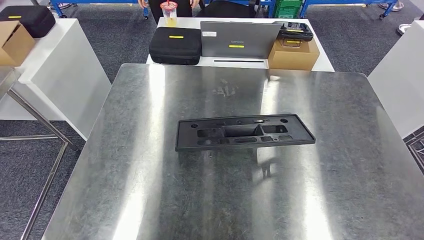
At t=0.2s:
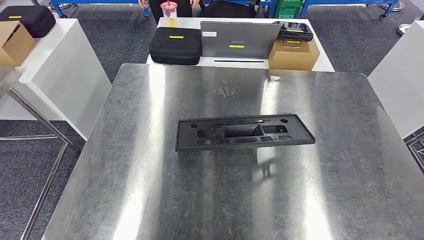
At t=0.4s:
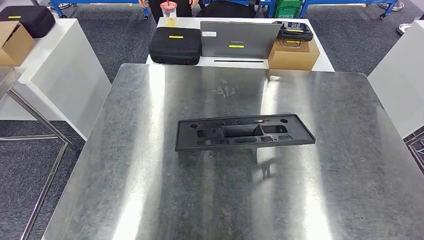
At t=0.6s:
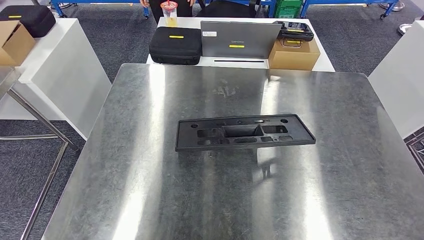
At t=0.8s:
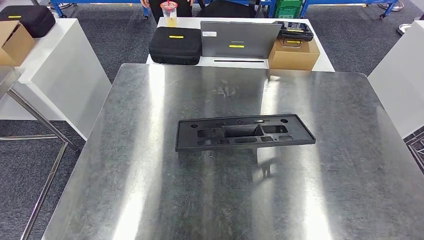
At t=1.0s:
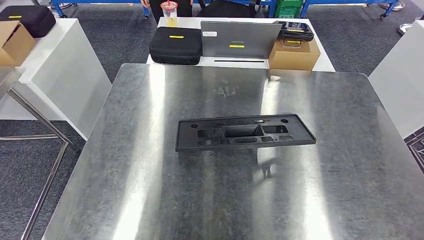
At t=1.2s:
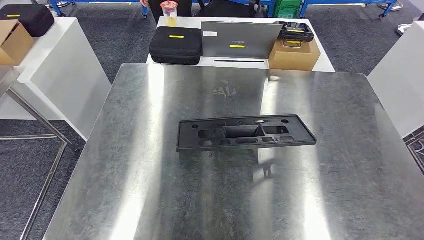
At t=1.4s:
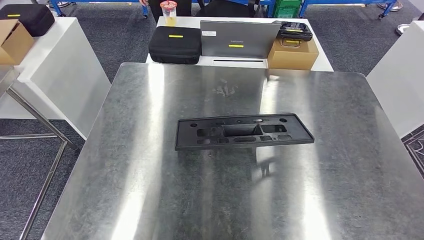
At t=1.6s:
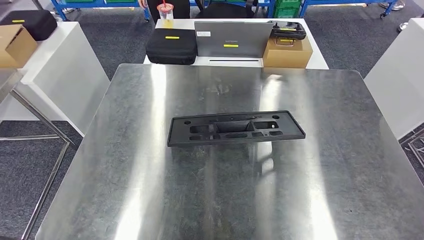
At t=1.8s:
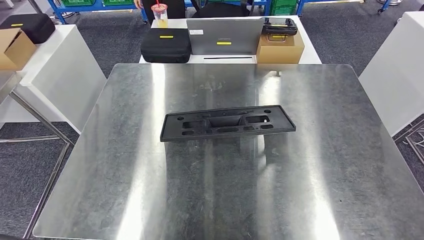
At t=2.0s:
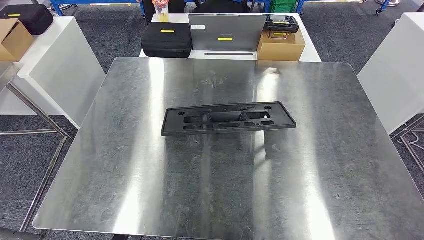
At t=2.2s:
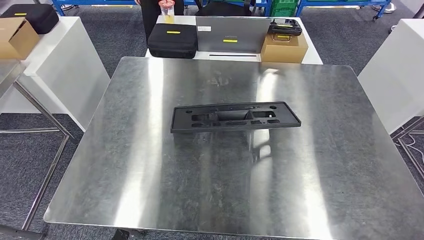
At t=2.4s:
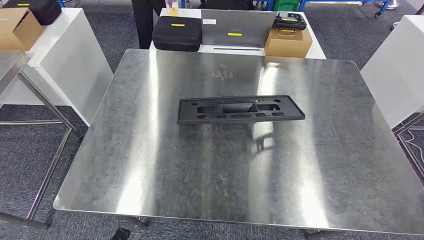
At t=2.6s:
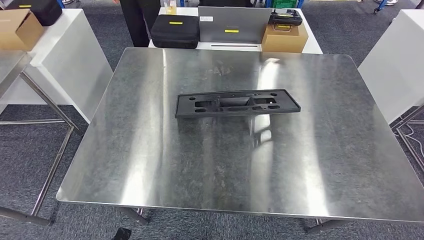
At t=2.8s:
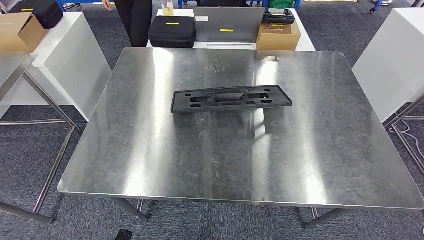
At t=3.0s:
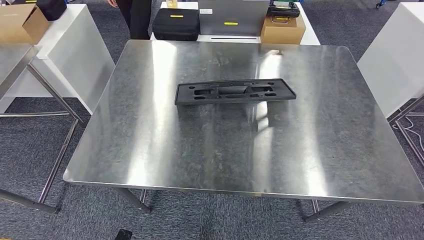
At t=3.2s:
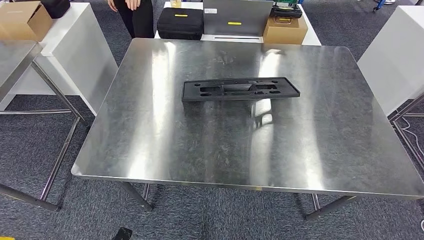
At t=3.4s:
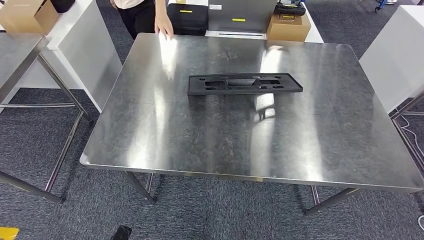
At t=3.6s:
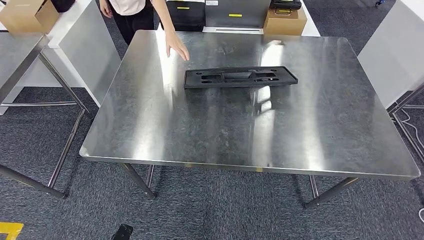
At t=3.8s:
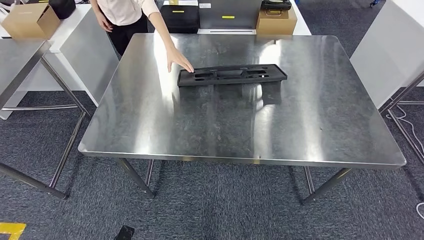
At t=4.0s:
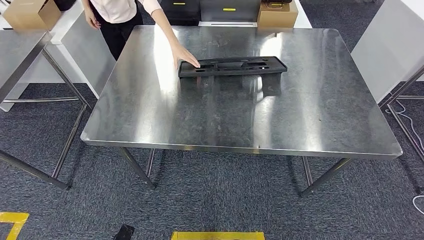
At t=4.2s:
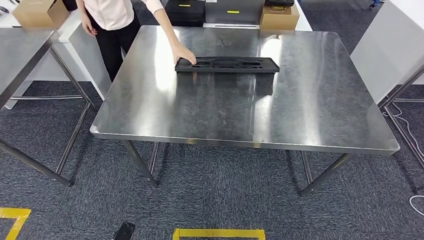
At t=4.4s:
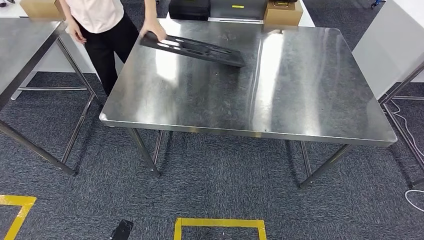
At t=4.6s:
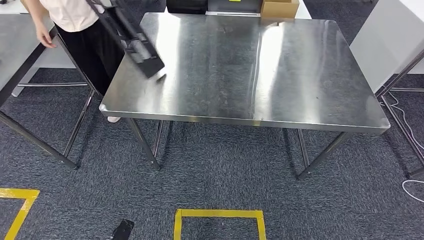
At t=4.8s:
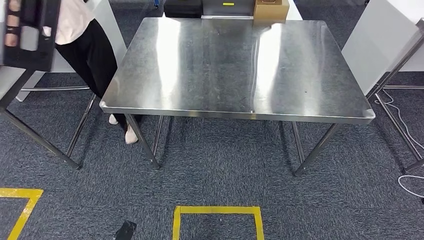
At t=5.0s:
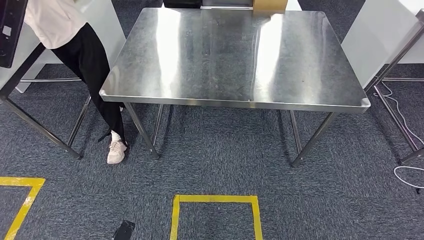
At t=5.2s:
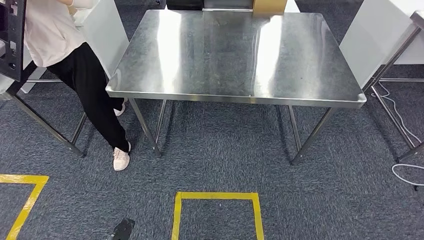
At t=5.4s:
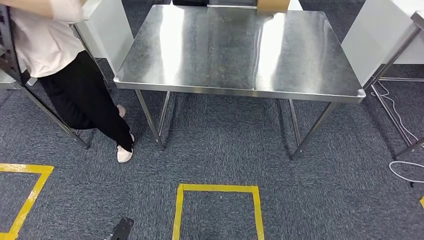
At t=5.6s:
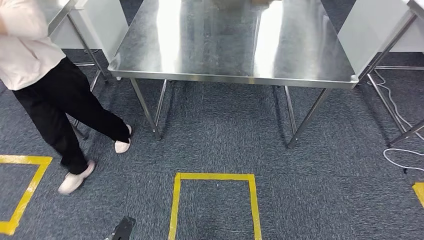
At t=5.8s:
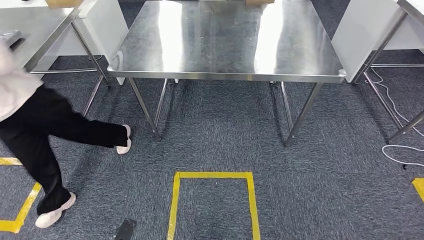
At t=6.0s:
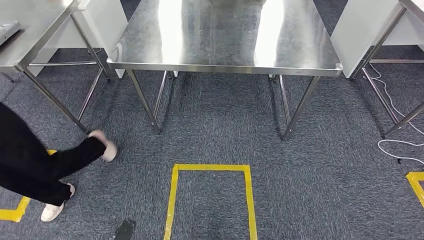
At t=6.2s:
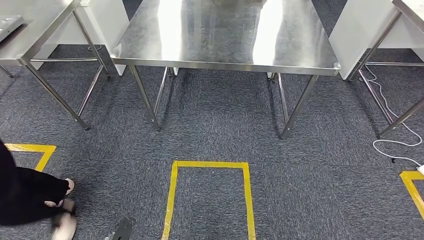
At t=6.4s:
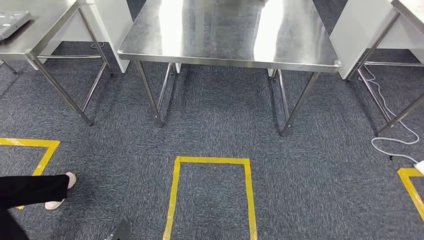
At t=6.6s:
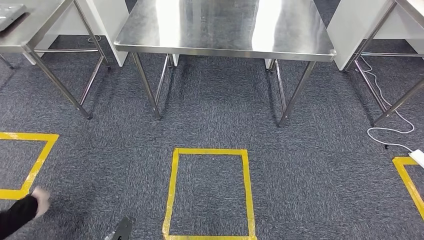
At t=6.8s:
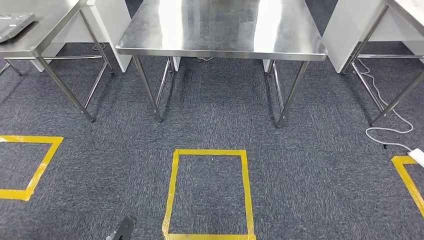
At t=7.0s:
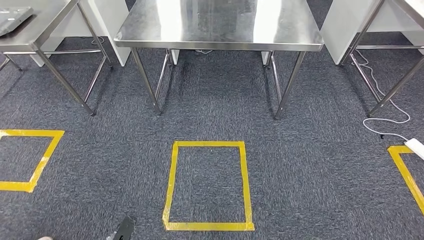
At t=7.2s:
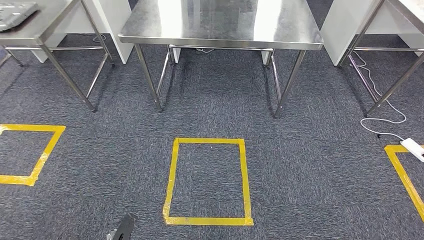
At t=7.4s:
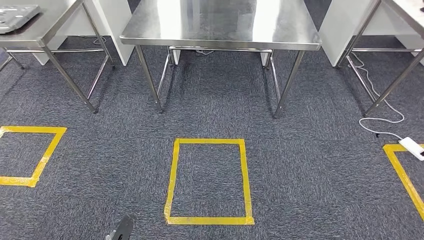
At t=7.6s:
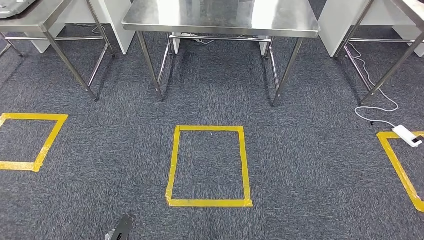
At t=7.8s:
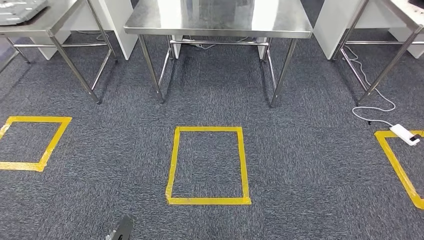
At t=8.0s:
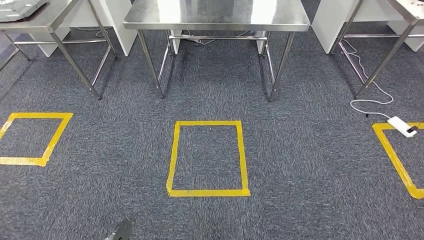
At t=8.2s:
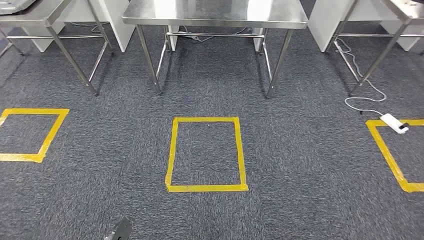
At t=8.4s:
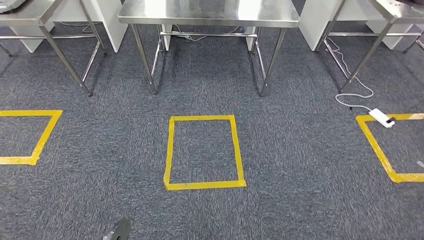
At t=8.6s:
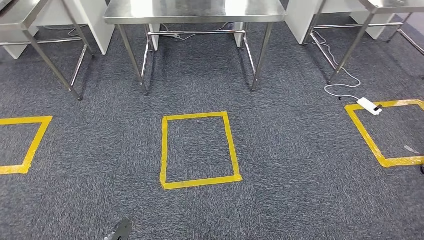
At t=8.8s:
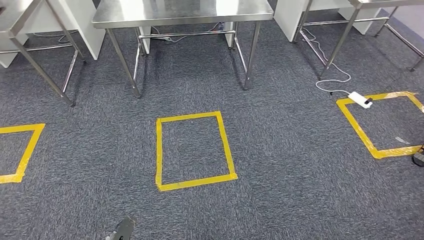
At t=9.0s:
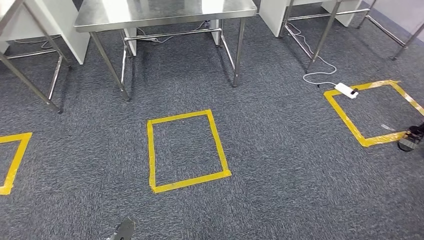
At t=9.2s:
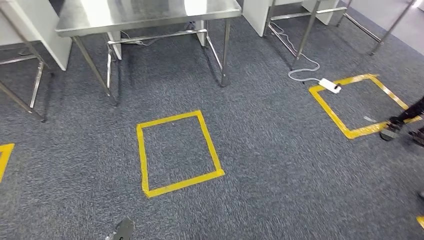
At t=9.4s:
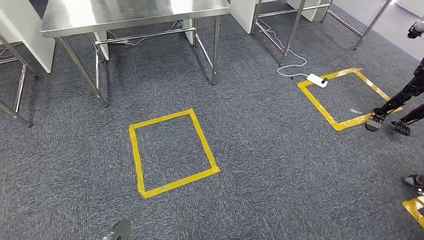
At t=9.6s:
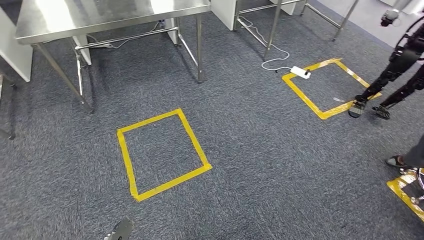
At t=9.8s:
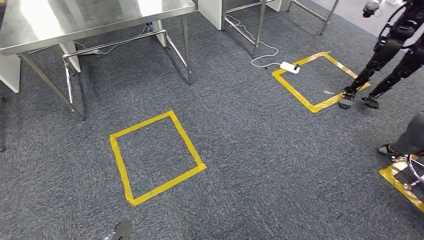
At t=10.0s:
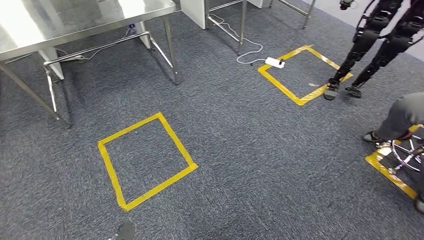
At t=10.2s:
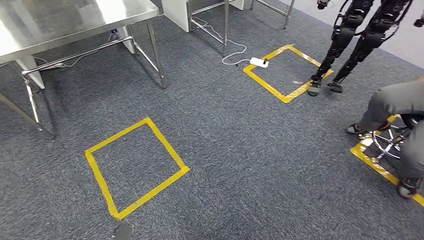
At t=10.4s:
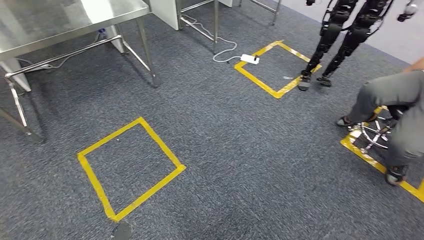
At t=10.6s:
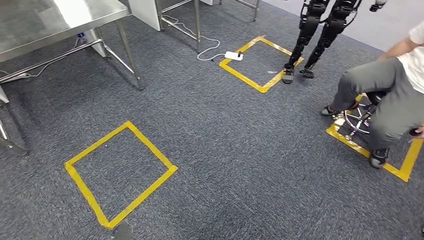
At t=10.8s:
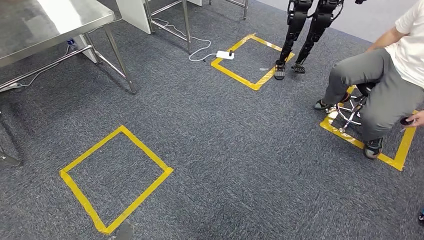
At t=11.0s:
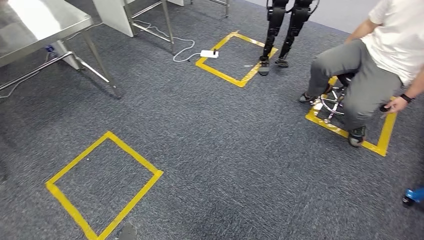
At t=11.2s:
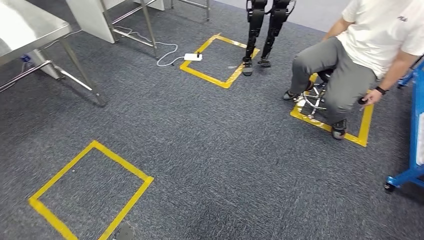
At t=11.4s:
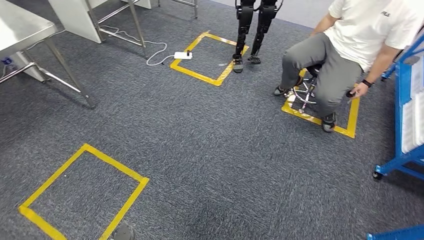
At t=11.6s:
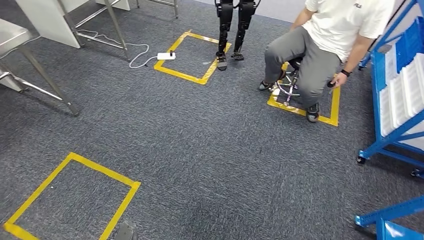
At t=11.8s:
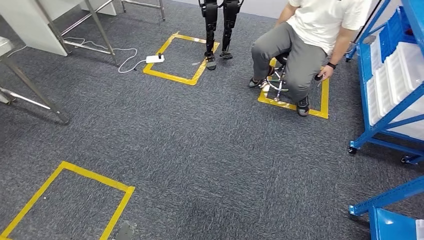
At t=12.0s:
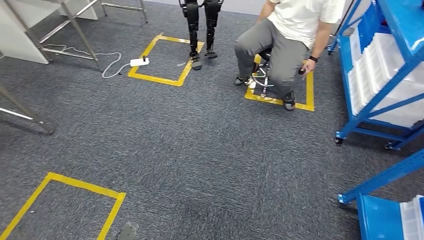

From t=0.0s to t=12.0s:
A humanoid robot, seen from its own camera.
Step, from t=0.0s to t=2.0s: Insert the large material into the corresponding hole on the workbench.
From t=0.0s to t=1.6s: The left hand heads to the left, covering some 5 cm. The right hand goes roughly 15 cm to the left and downward.

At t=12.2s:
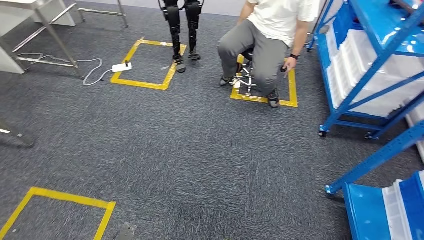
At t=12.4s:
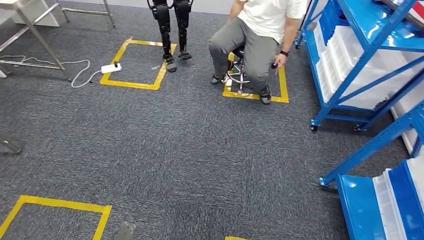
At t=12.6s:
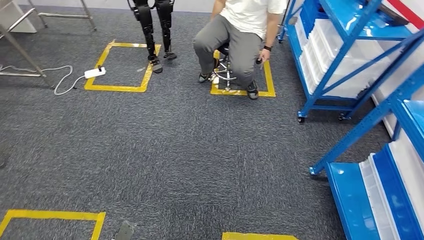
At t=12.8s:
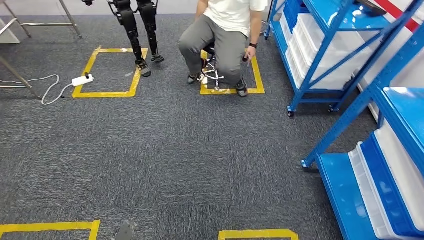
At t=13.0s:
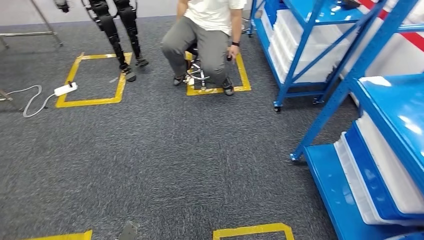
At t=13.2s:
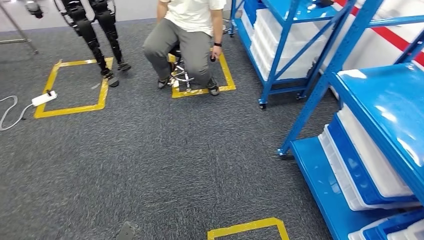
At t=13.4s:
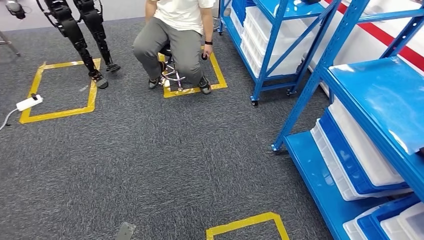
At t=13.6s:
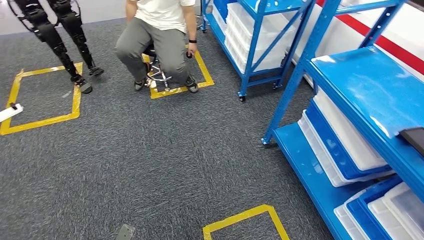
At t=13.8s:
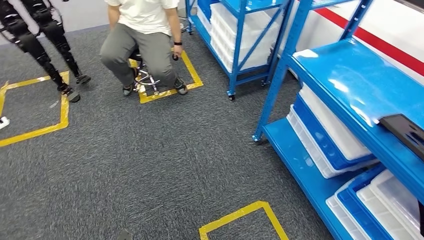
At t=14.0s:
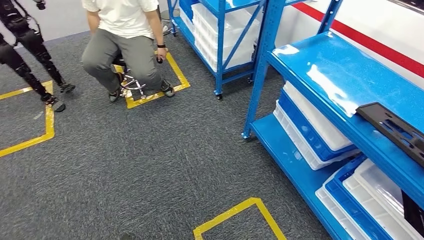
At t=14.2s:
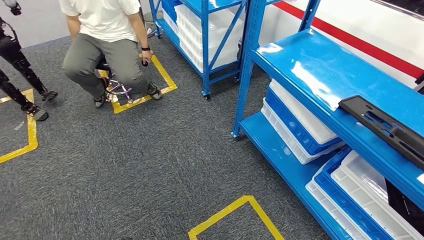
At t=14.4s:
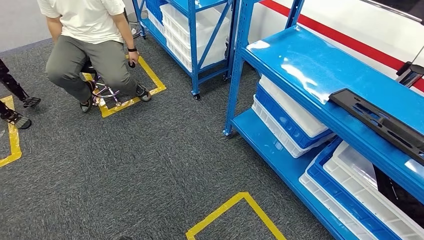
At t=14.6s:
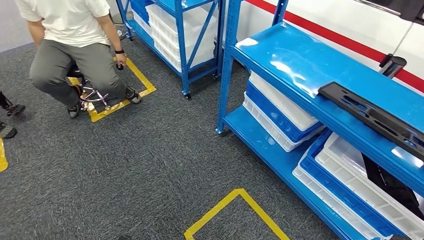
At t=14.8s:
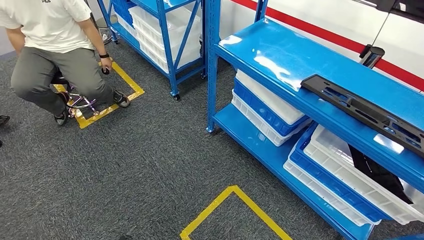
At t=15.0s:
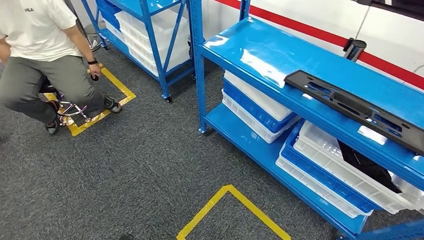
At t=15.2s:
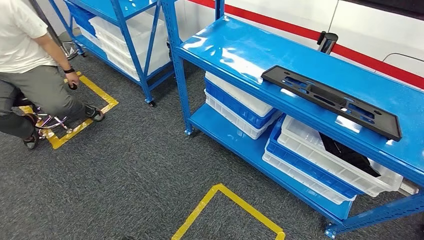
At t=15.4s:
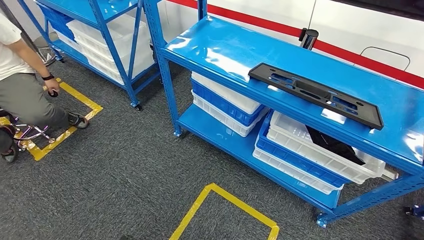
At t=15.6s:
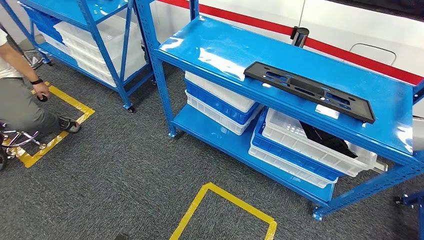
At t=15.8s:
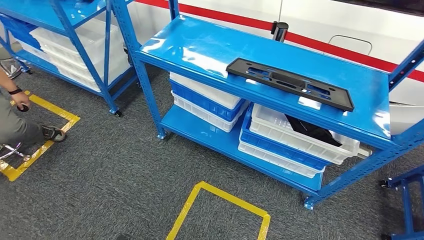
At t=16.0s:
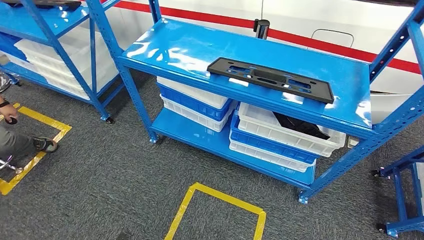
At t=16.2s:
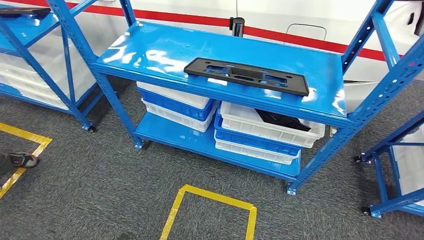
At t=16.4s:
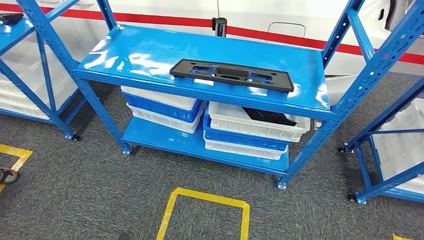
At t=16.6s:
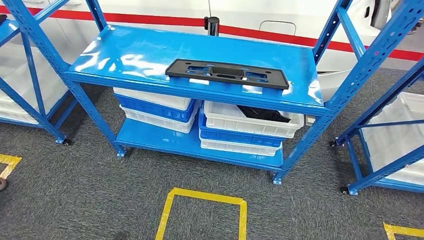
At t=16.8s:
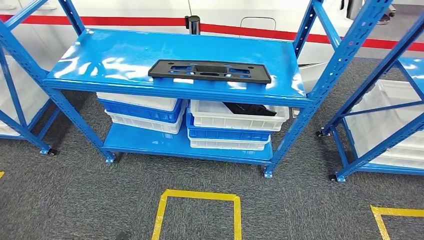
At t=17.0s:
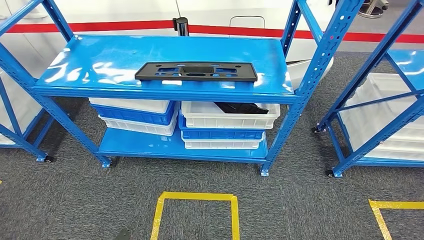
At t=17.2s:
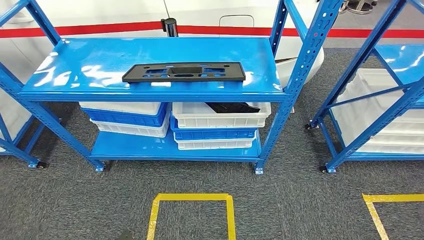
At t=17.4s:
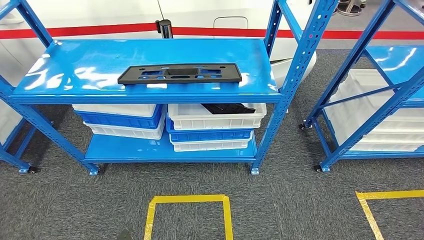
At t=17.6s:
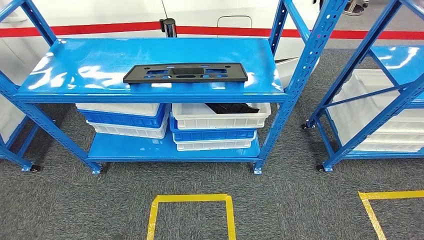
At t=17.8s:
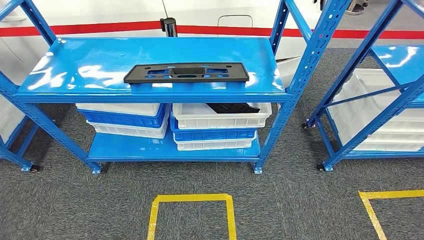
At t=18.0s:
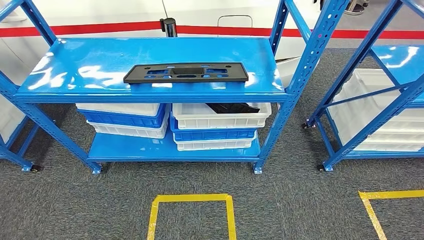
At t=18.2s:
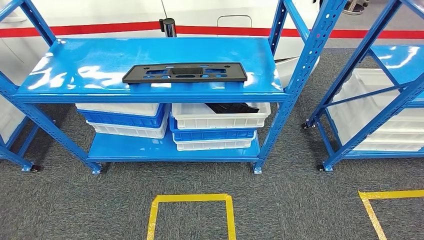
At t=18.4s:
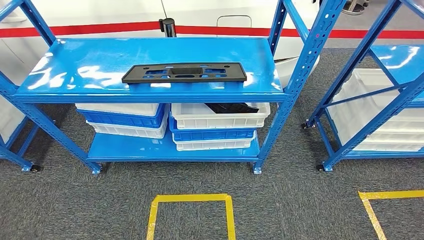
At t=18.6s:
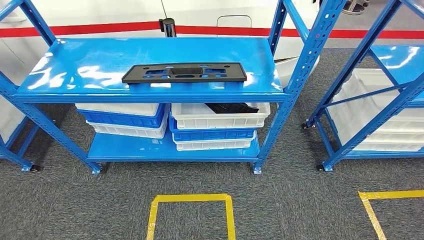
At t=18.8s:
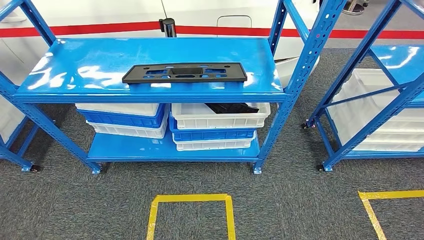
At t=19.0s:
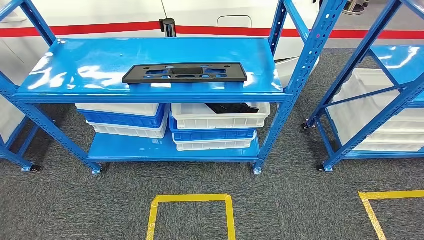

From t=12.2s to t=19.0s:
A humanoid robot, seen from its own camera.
Step, from t=12.2s to t=18.8s: Move to the initial position of the shelf.
